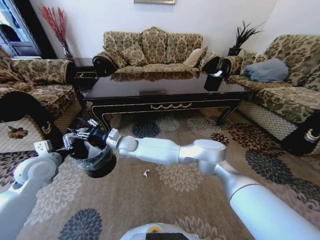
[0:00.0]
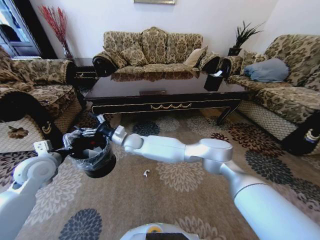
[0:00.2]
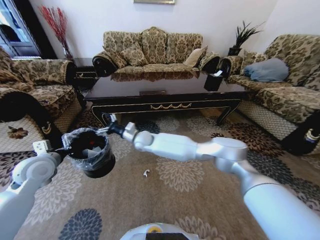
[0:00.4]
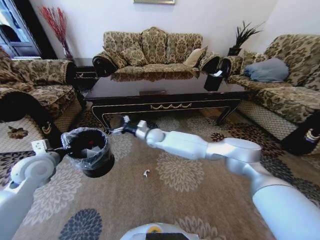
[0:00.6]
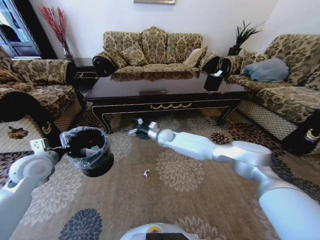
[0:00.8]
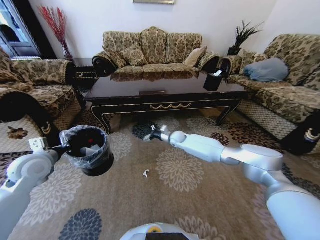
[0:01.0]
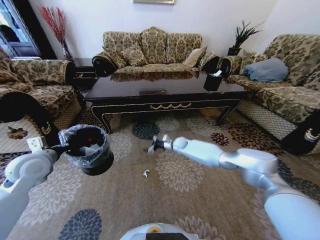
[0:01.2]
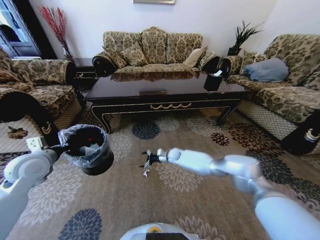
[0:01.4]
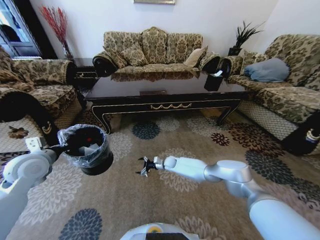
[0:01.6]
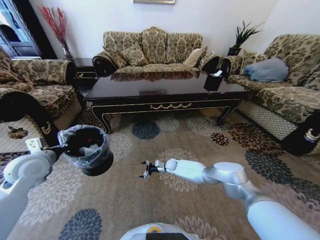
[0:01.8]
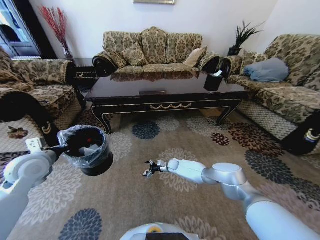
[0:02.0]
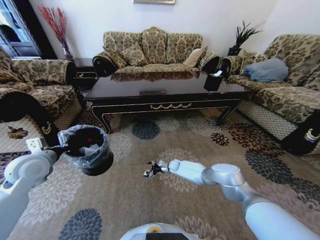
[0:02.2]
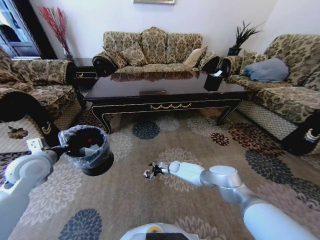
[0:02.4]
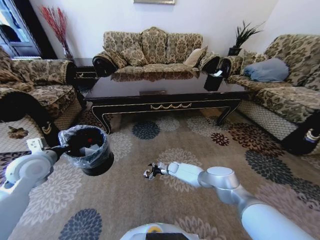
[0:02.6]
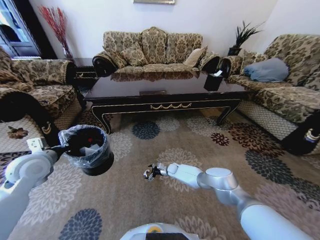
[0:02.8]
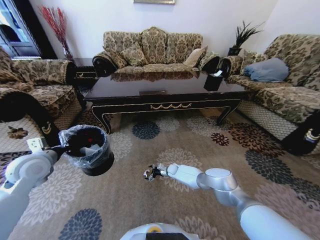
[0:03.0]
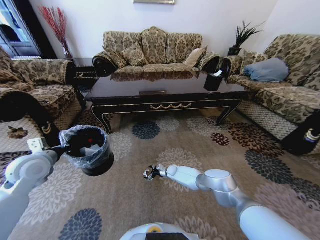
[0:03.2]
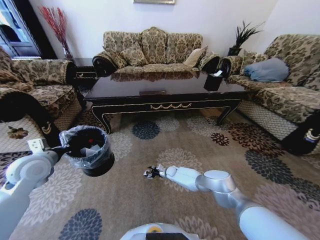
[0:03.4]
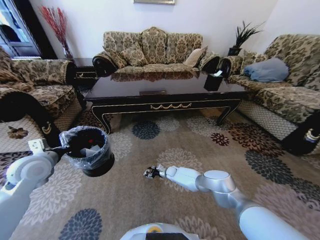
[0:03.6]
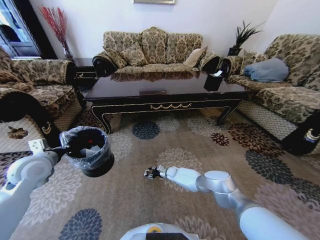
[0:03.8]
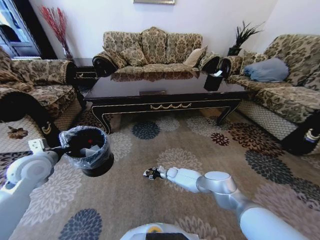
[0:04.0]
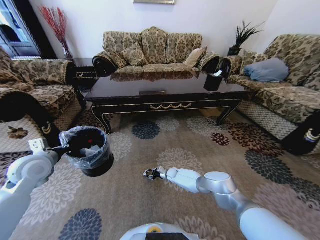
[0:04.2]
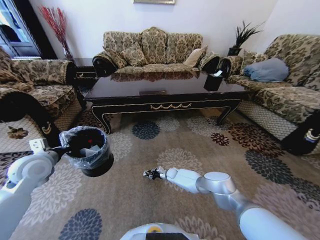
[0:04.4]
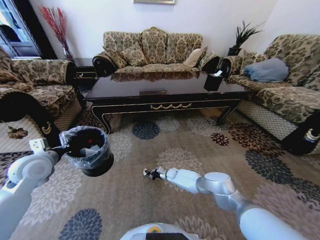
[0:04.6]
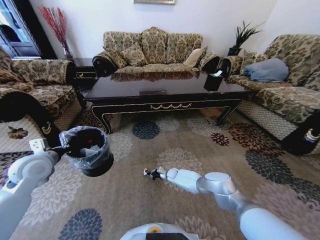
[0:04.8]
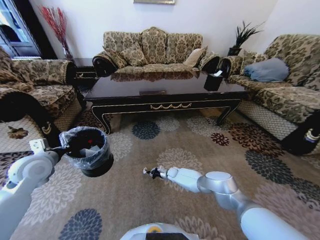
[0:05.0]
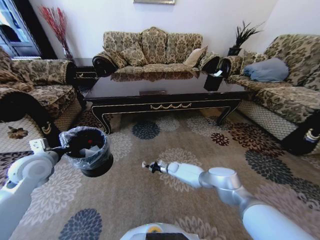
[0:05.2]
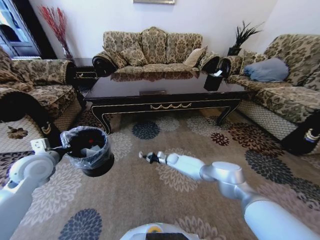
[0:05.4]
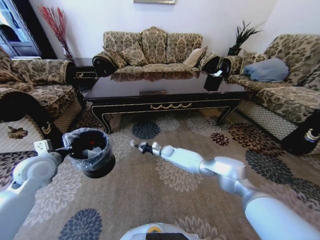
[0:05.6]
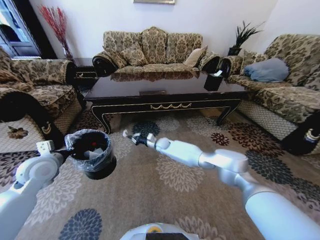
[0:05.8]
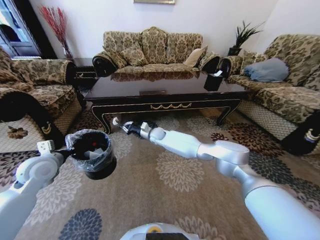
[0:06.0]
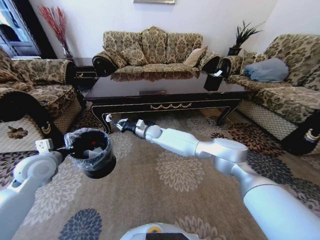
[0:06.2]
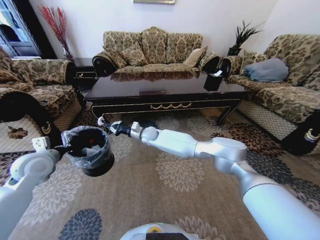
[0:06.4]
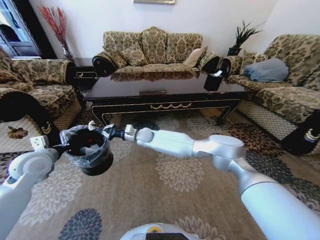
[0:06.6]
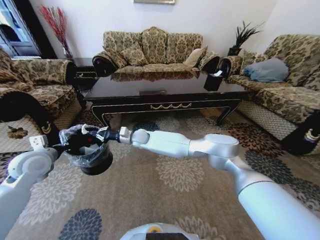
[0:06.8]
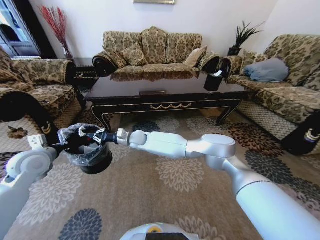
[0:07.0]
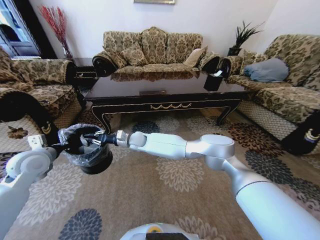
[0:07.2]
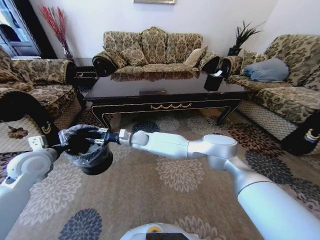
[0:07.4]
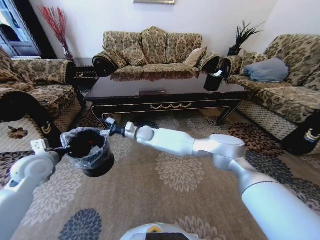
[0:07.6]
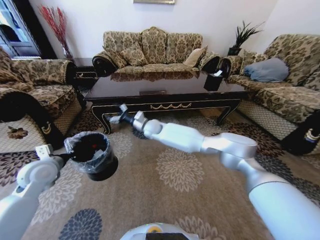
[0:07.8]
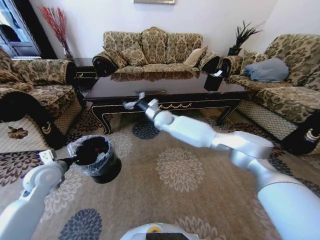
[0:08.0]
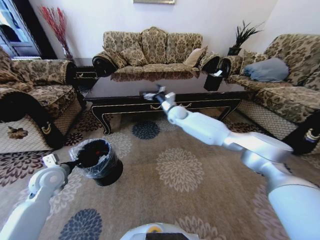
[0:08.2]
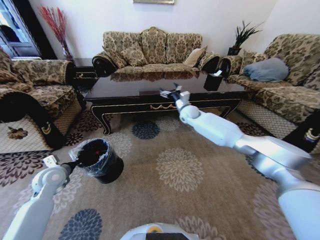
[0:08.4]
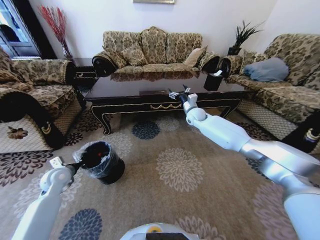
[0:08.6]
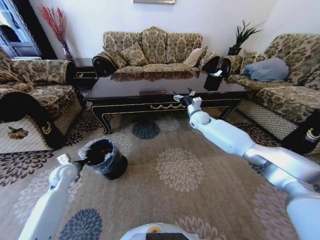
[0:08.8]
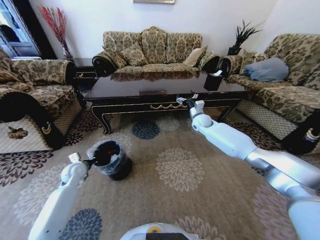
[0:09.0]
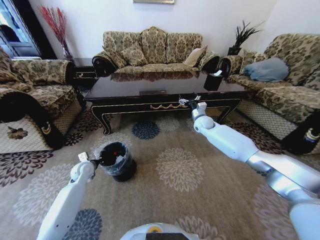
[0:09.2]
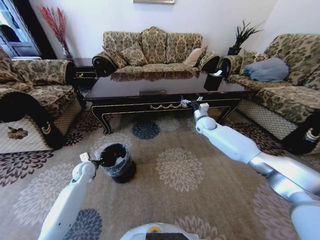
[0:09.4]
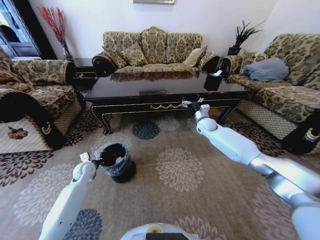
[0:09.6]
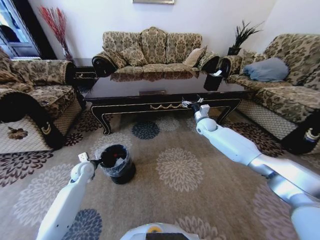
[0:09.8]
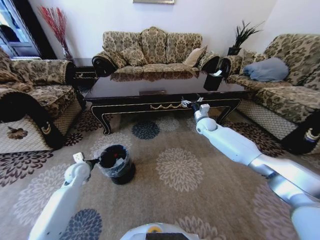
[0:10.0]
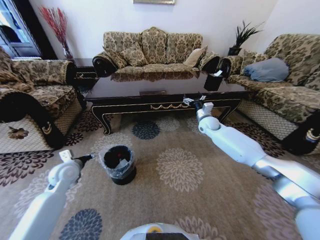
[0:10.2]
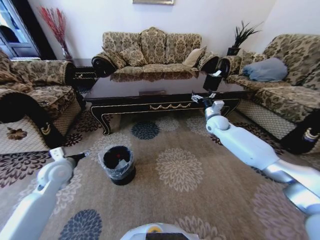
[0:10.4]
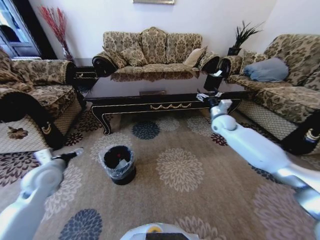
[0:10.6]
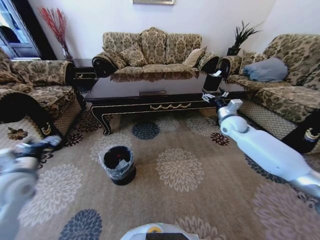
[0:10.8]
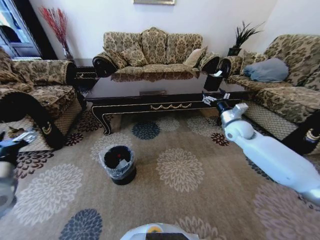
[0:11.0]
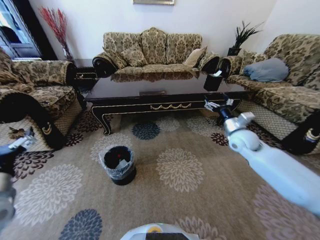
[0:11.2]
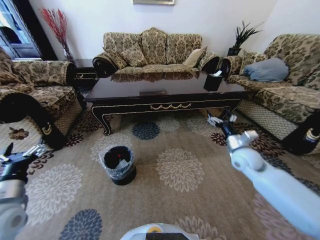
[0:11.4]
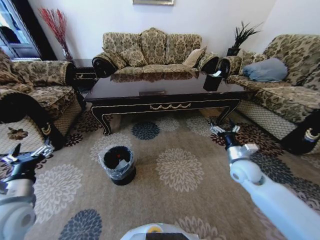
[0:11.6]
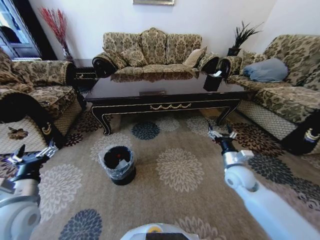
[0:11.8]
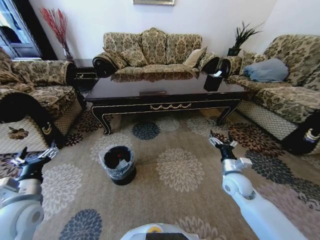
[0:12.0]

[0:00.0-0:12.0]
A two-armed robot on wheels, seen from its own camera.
Task of the whole recording: Move to the front of the table and pick up the trash from the floor, then place it into the trash bin.
0:00.0 to 0:01.6: The right gripper moves to the right and downward, some 35 cm.
0:01.6 to 0:03.0: The right gripper goes approximately 5 cm downward.
0:03.0 to 0:04.4: The right gripper closes up.
0:04.4 to 0:06.0: The right gripper moves upward, about 25 cm.
0:06.0 to 0:07.6: The right gripper shifts approximately 10 cm to the left and upward, and opens up.
0:07.6 to 0:09.0: The right gripper moves to the right, about 30 cm, and opens its fingers; the left gripper shifts some 15 cm downward and forward.
0:09.0 to 0:10.4: The right gripper moves to the right, about 5 cm; the left gripper is displaced upward by approximately 10 cm, and opens.
0:10.4 to 0:12.0: The left gripper moves backward, roughly 15 cm; the right gripper is displaced backward and downward by about 30 cm.

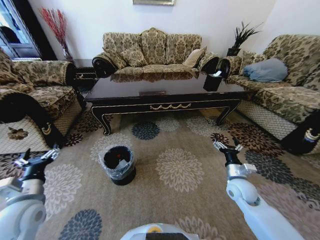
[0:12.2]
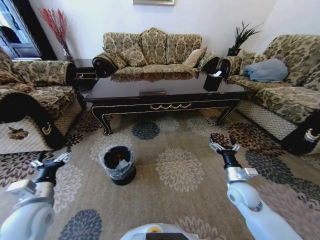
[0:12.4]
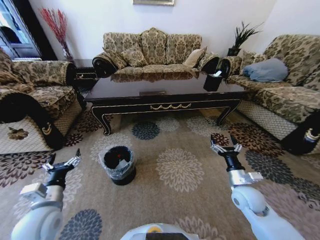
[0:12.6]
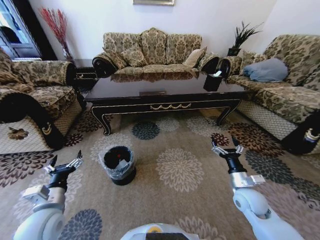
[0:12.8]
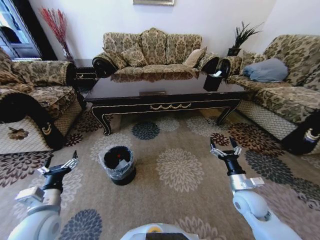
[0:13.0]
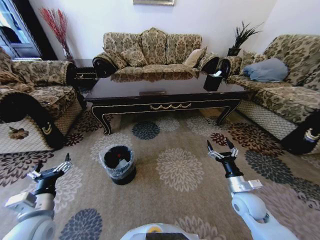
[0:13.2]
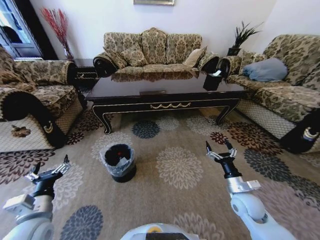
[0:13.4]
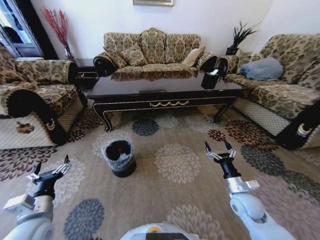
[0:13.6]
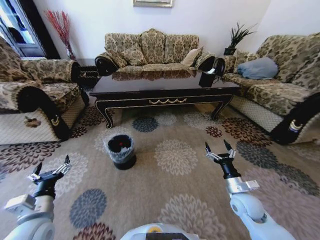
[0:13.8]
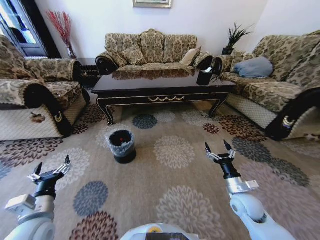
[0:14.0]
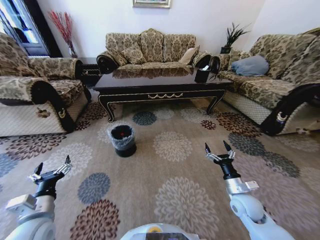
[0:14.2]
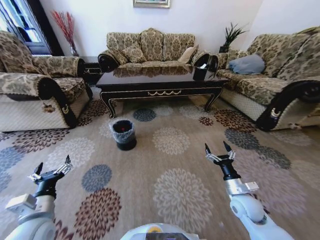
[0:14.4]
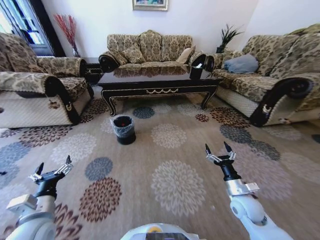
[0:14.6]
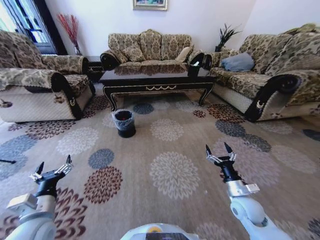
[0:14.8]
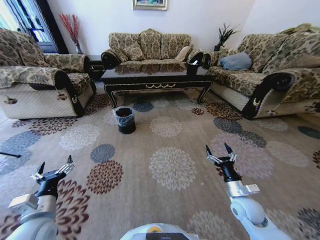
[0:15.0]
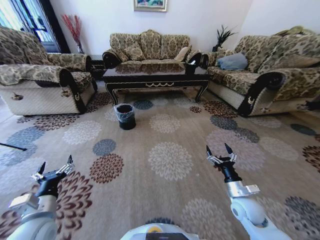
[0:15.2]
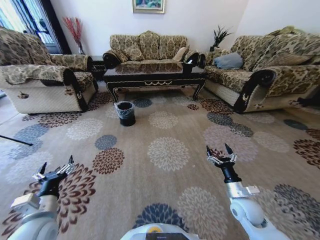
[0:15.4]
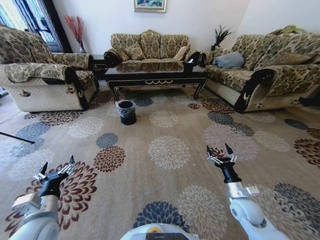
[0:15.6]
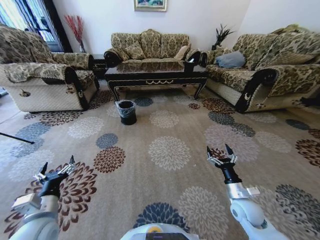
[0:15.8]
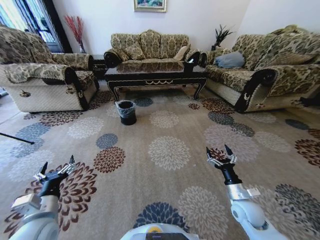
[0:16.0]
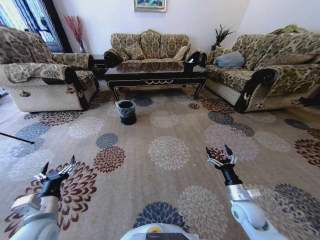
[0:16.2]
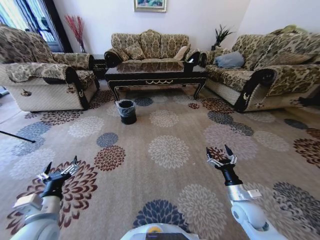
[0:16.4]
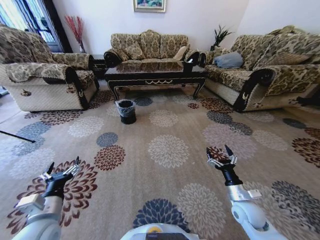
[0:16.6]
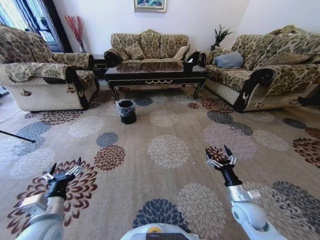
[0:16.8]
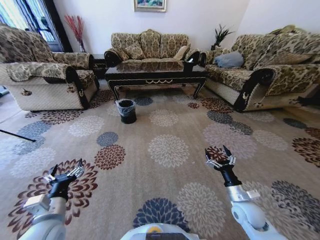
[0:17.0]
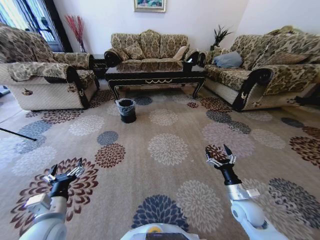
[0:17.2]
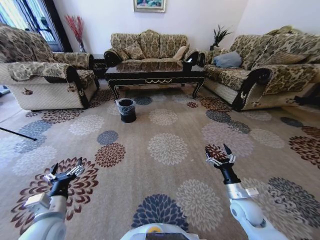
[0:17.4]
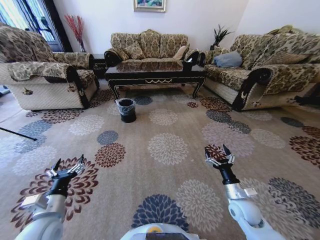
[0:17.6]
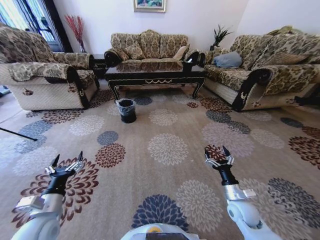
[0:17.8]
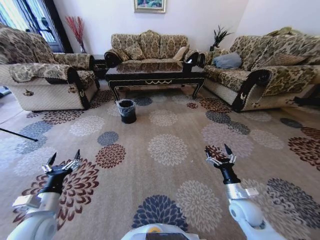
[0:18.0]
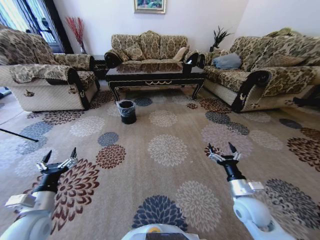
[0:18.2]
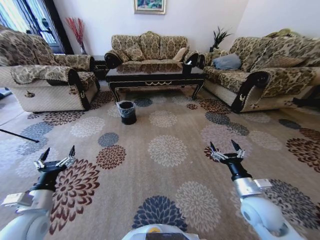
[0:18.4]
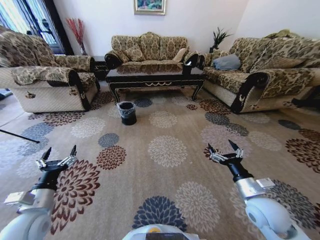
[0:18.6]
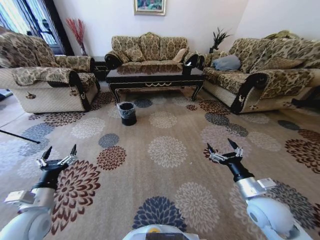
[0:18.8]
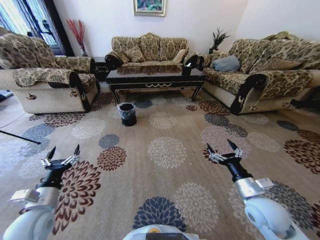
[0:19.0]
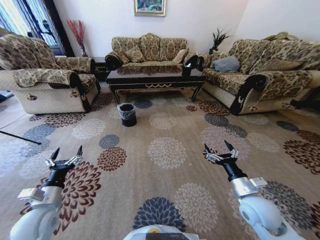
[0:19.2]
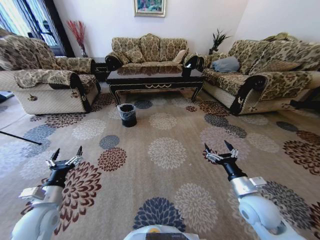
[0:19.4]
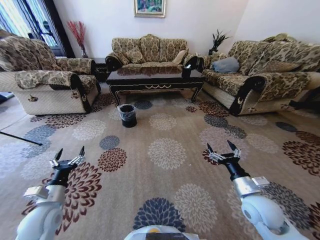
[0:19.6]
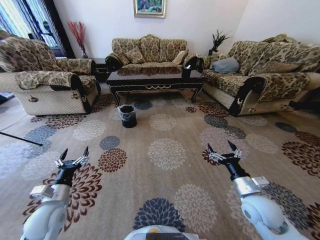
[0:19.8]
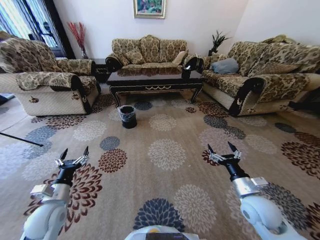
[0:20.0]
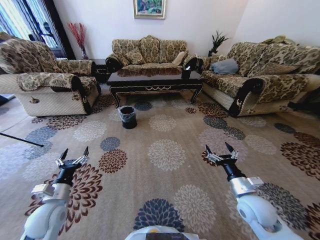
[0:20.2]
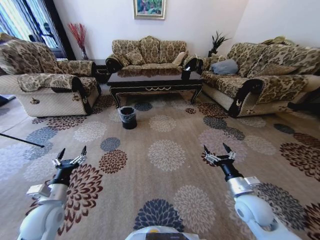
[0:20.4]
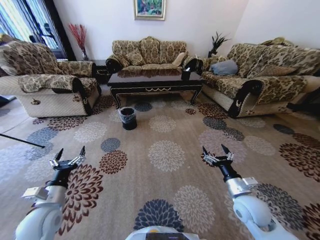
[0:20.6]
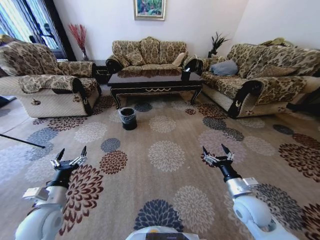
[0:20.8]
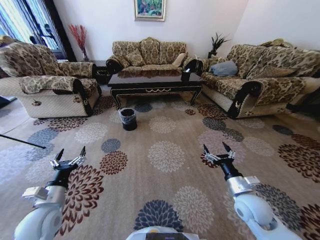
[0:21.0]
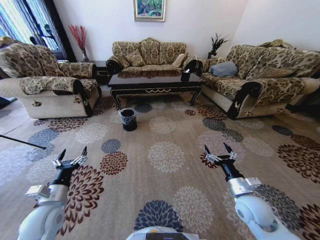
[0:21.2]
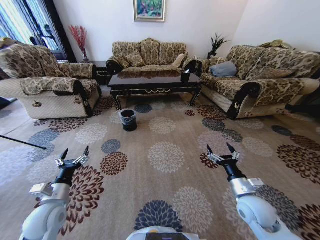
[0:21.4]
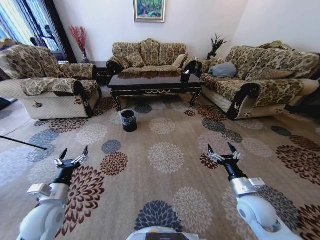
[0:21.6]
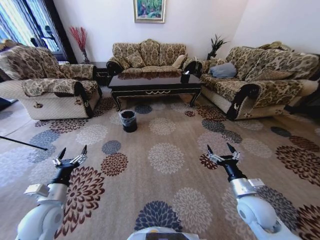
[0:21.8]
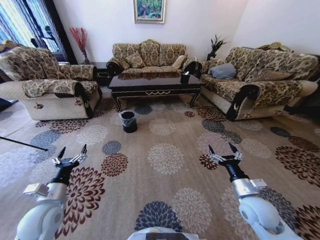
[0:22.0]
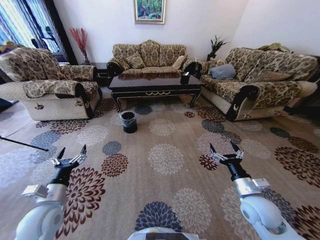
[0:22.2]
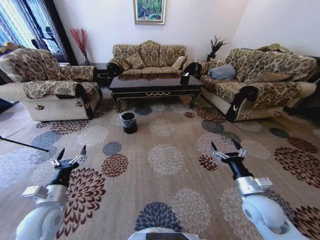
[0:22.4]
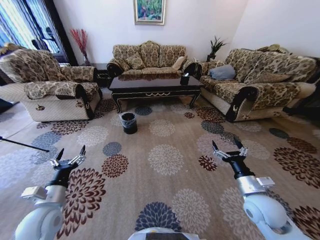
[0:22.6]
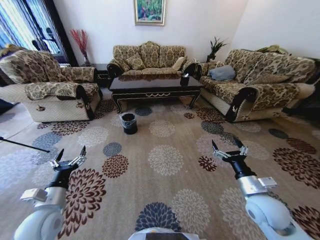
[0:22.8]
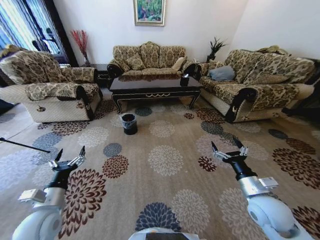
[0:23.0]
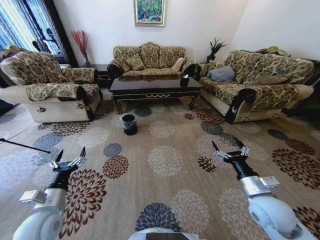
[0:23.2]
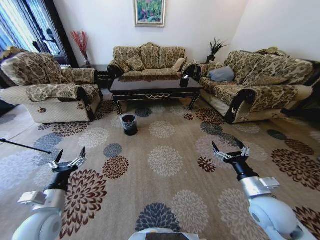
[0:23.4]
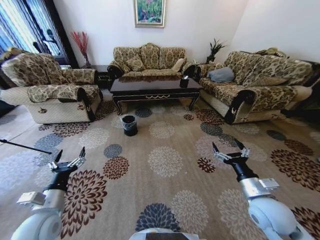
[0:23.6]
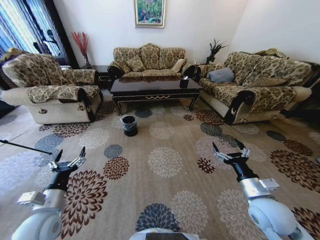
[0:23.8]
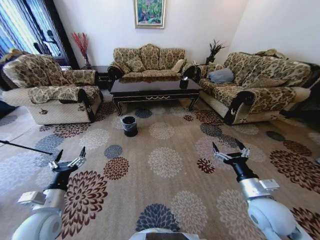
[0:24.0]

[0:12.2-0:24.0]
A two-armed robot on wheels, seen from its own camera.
Task of the whole recording: Move to the front of the table and pick up the trash from the floor, then place it into the trash bin.
0:12.2 to 0:13.6: The right gripper ends up some 5 cm from where it was. Meanwhile the left gripper changes place by approximately 5 cm.
0:16.6 to 0:18.2: The left gripper changes place by about 5 cm.
